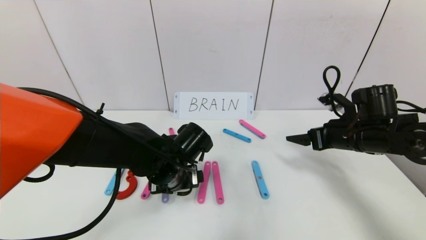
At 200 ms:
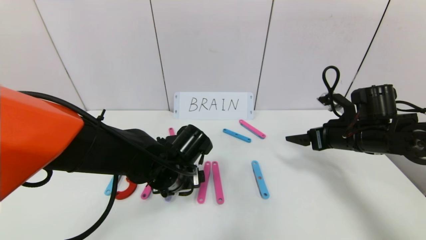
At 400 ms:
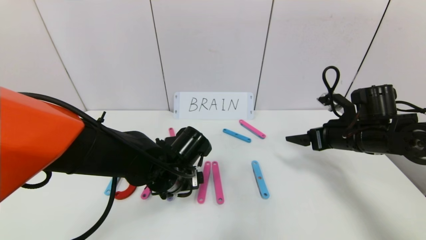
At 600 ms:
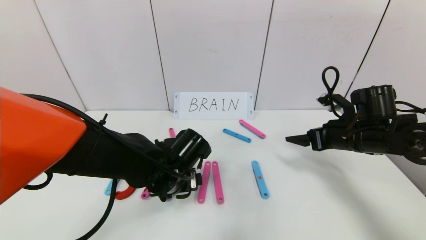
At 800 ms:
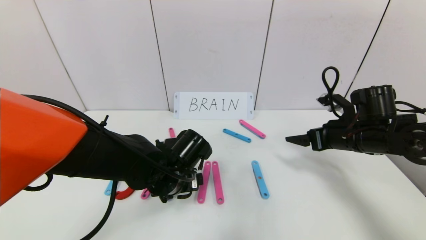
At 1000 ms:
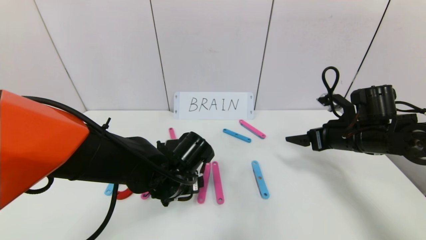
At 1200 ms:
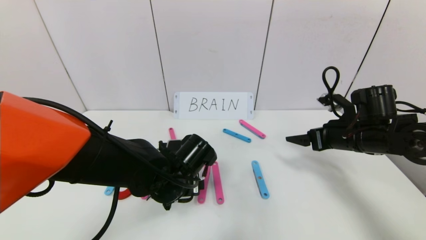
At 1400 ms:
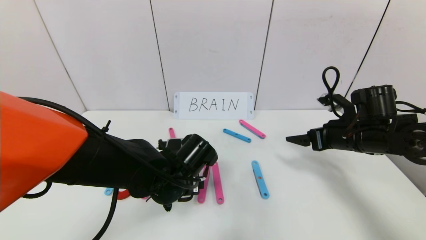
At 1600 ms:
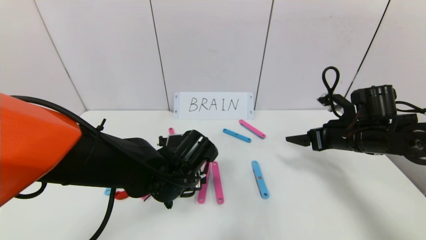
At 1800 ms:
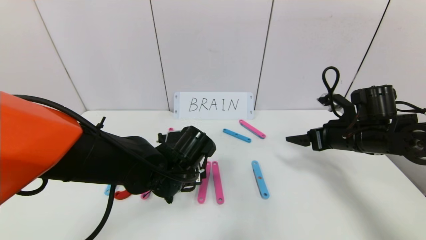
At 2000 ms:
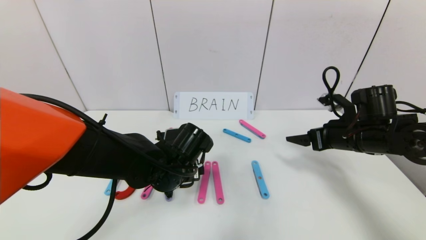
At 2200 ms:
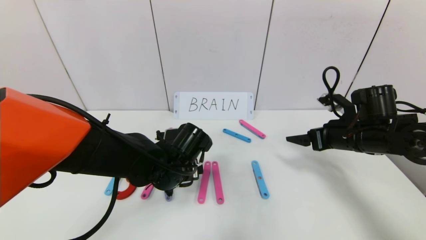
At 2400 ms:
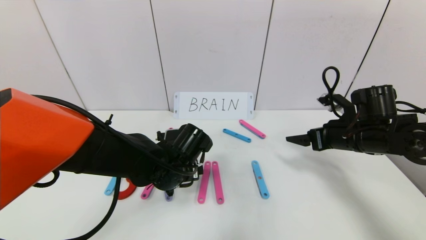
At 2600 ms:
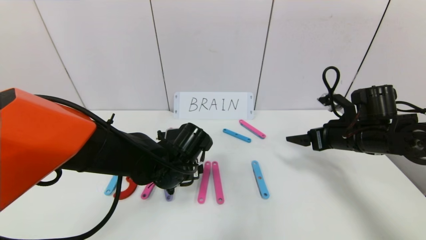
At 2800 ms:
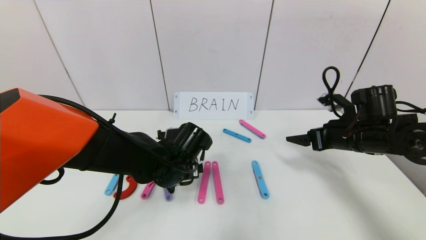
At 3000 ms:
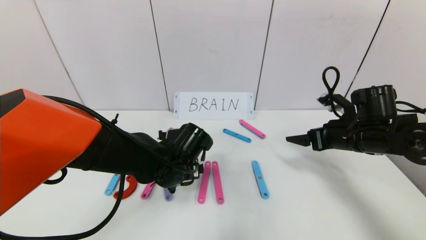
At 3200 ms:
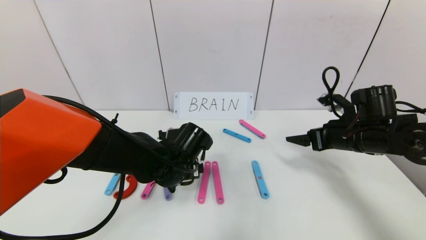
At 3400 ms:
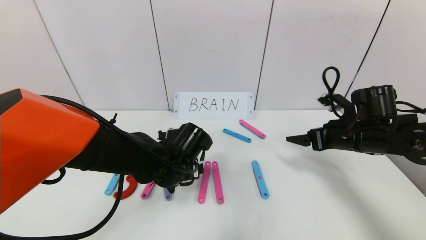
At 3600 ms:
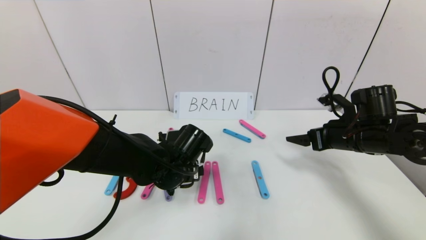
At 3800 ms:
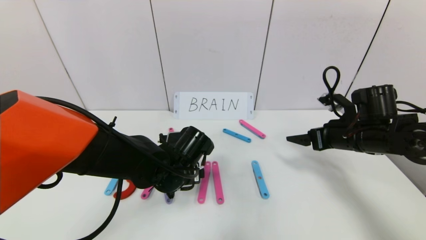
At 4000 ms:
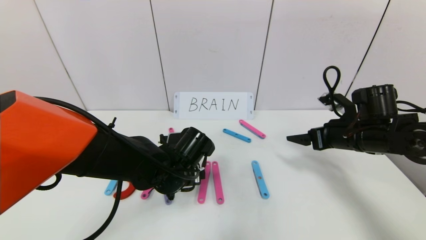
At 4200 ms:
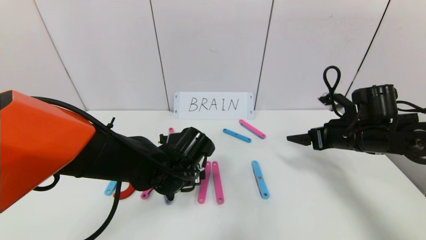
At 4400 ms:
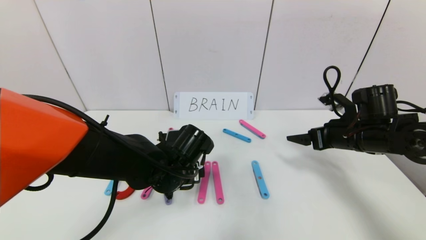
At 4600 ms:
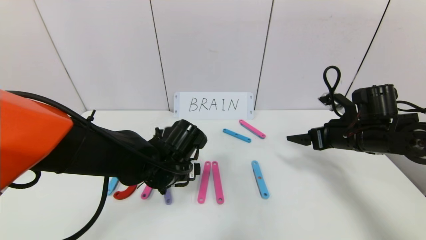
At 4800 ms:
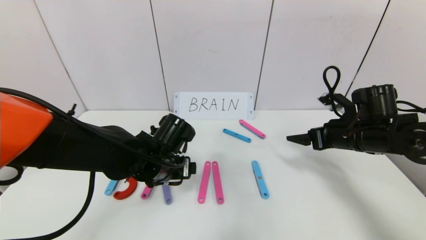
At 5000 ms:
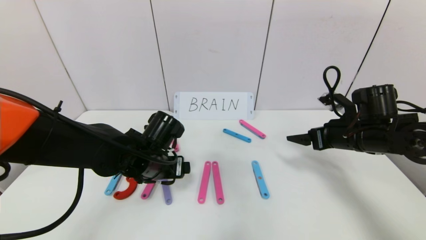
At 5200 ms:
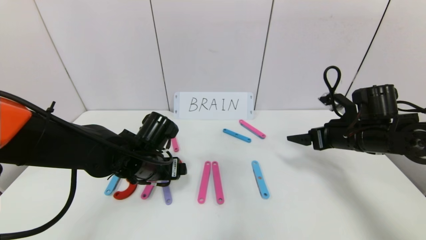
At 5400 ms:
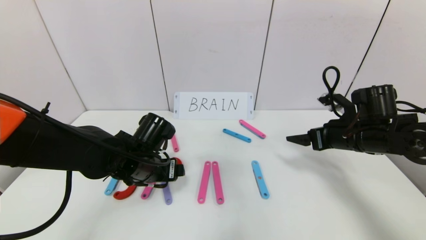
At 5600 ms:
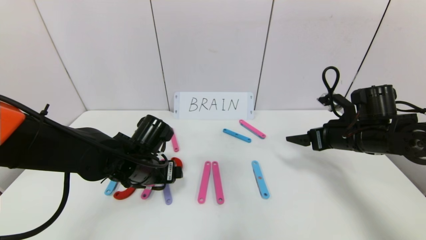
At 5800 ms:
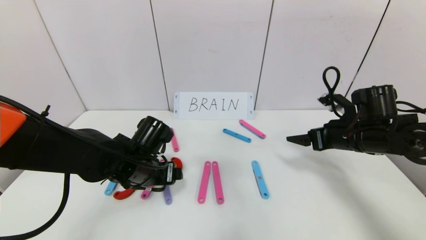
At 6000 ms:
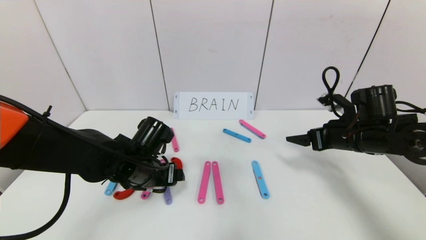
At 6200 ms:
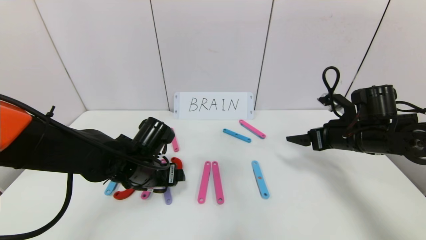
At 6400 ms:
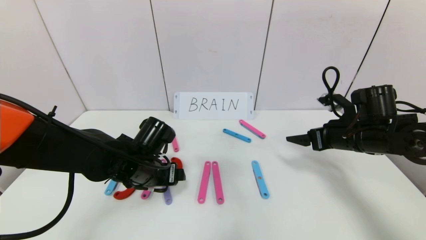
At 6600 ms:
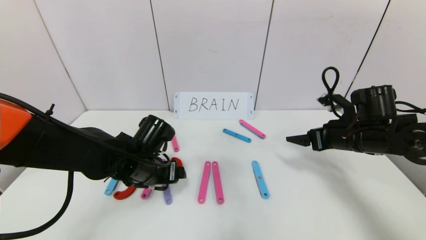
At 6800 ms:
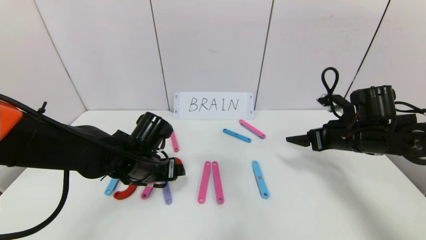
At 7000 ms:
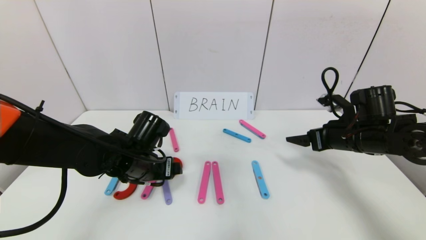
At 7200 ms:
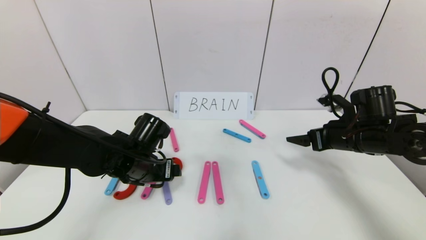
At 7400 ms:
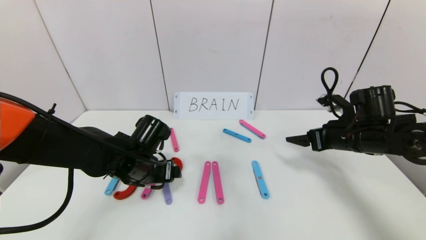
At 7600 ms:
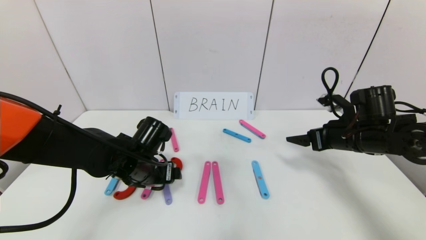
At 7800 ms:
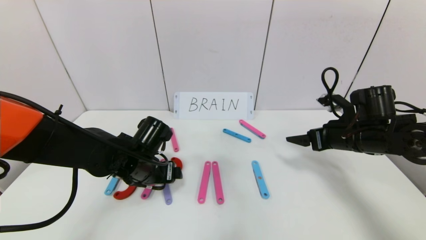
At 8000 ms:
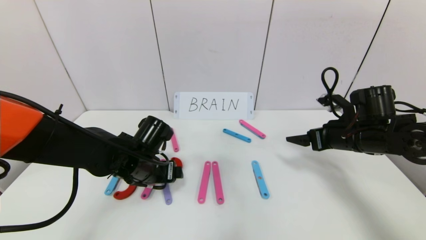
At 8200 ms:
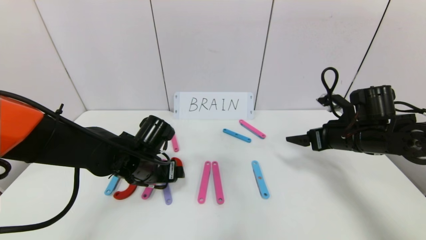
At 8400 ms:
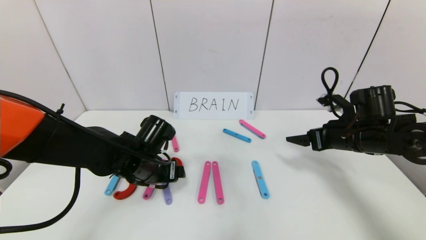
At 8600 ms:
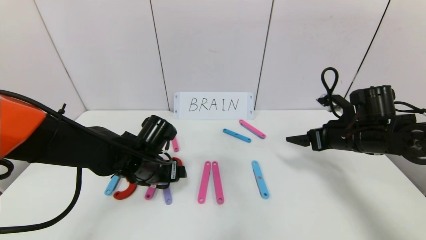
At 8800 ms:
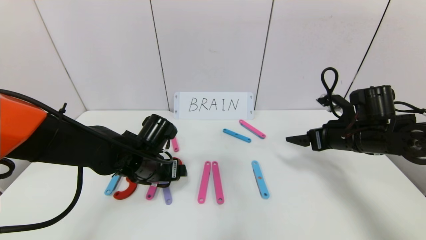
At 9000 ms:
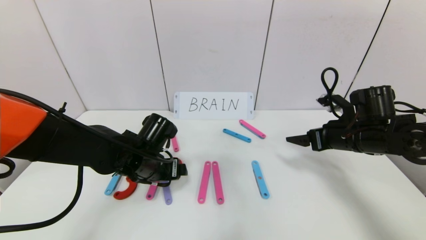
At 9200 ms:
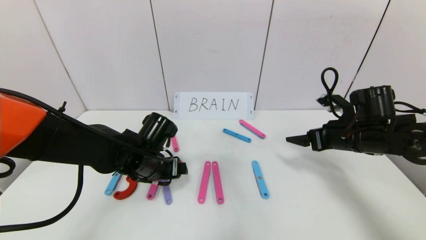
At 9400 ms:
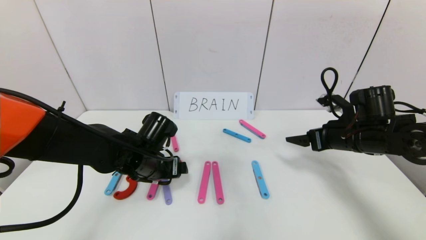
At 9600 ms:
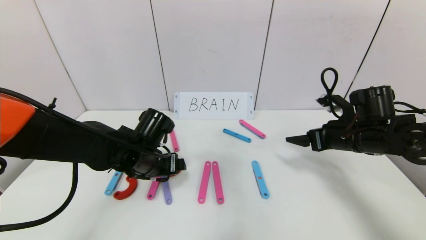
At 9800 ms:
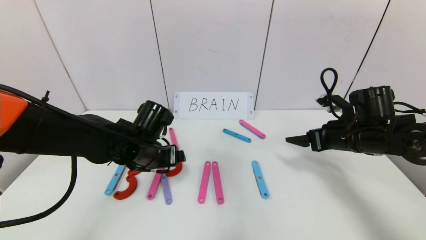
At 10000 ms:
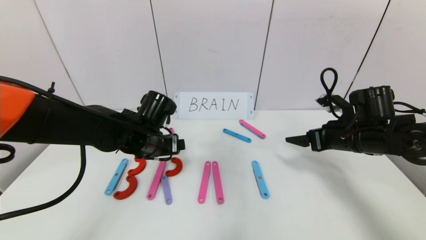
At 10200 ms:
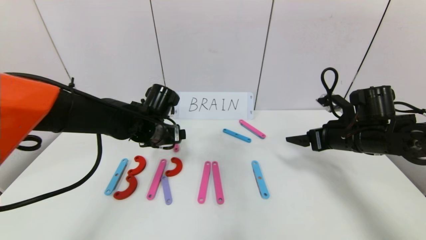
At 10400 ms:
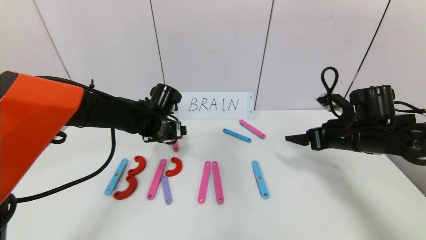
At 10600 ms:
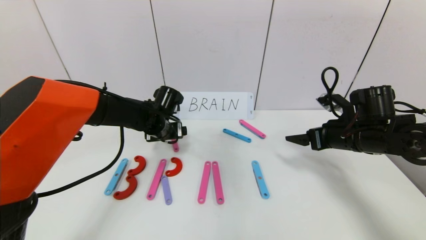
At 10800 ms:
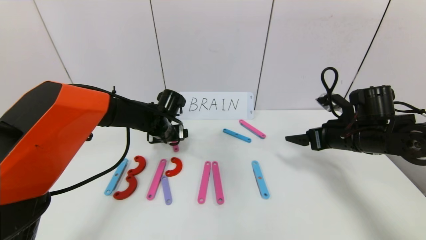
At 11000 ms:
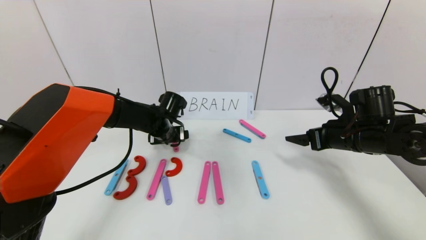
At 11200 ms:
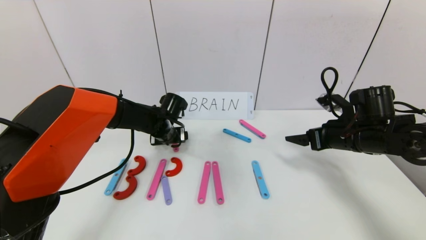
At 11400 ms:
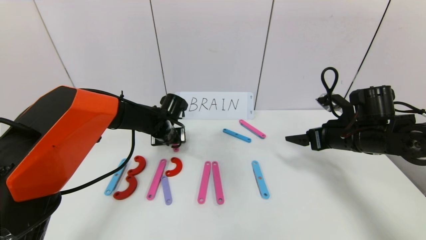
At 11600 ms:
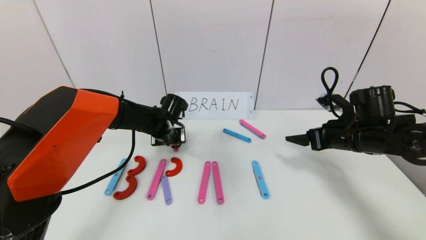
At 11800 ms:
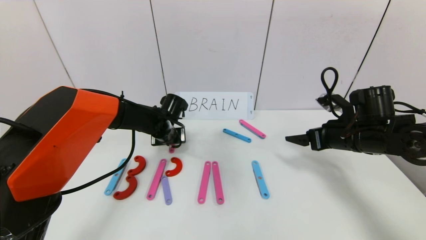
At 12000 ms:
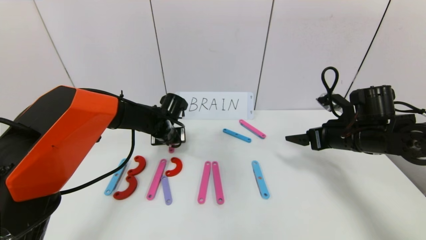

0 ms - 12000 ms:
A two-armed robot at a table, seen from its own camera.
Task of the whole recording: rearrange the word baai as brain.
Step, 0 ms - 4800 ms: Place the character R between first character B and third character A.
0 ms - 4400 ms: The grippers make only small movements.
4400 ms - 6000 ms: The left gripper travels to the left by about 5 cm.
6000 ms - 7600 ms: The grippers move only a little.
7600 ms - 9000 ms: Both grippers stay about where they are.
9000 ms - 10400 ms: The left gripper is displaced forward by approximately 10 cm.
10400 ms - 12000 ms: The left gripper changes place by roughly 5 cm, and closes.

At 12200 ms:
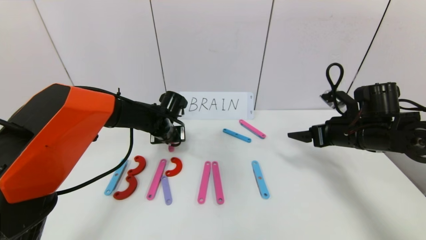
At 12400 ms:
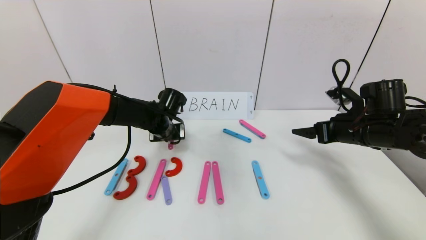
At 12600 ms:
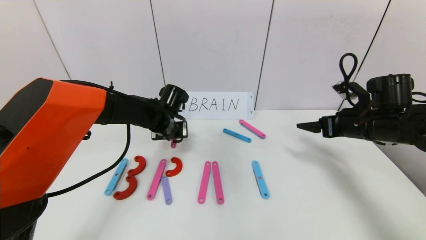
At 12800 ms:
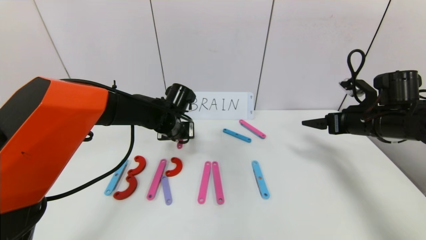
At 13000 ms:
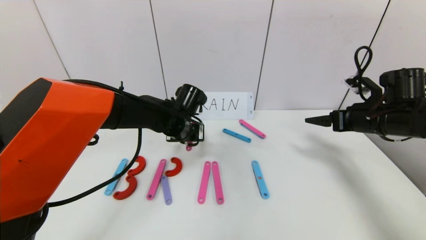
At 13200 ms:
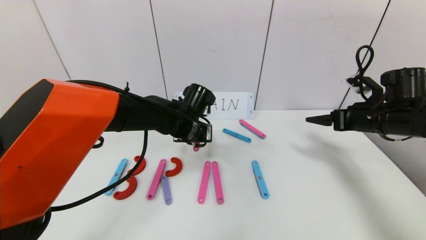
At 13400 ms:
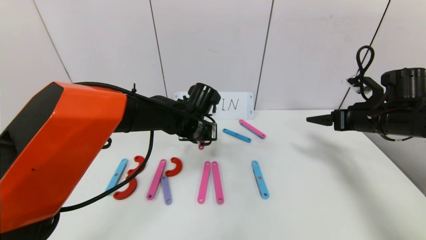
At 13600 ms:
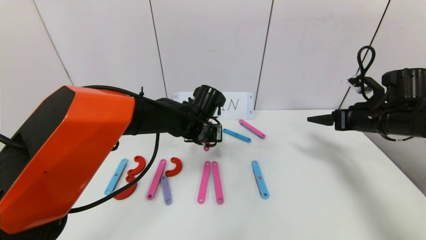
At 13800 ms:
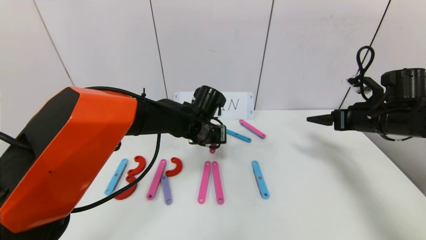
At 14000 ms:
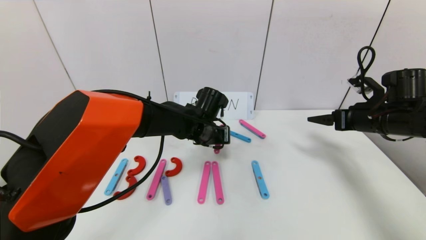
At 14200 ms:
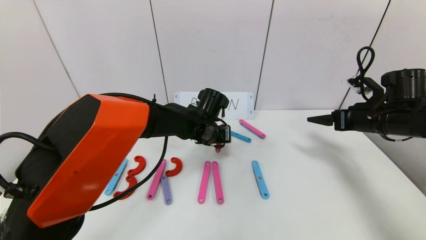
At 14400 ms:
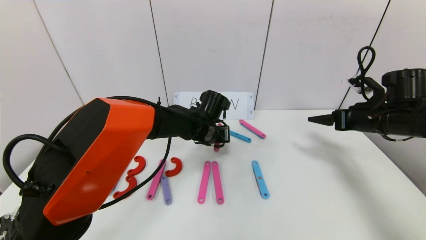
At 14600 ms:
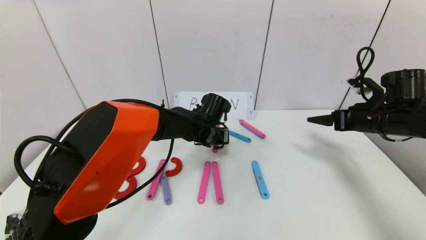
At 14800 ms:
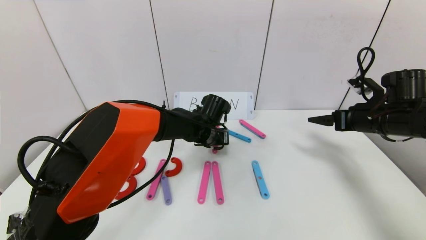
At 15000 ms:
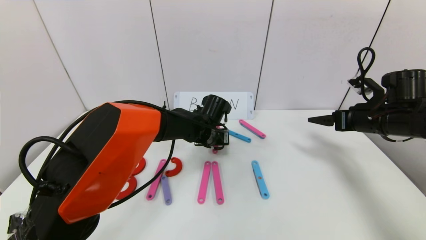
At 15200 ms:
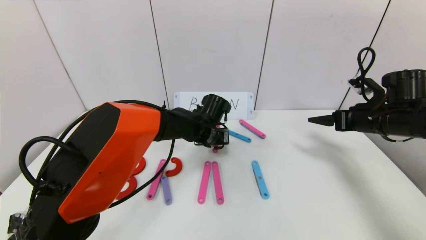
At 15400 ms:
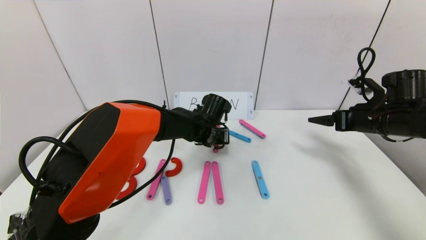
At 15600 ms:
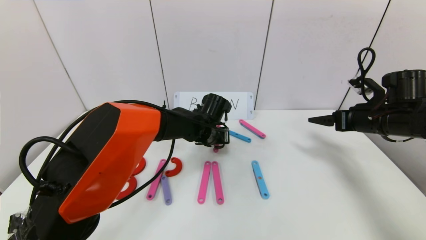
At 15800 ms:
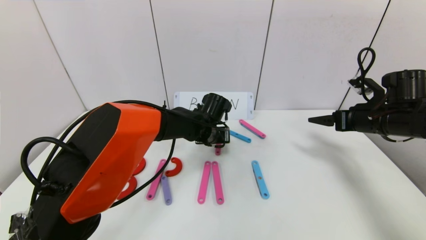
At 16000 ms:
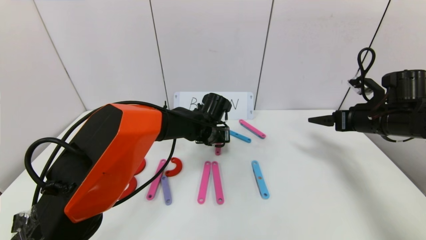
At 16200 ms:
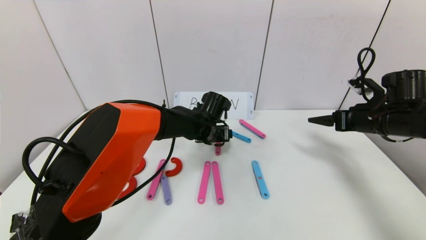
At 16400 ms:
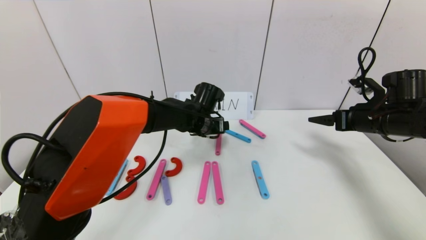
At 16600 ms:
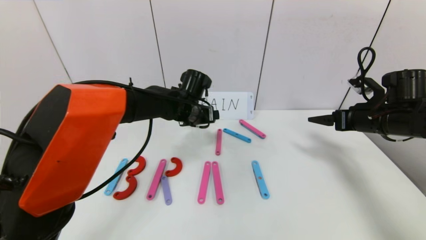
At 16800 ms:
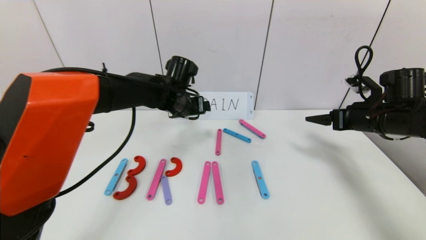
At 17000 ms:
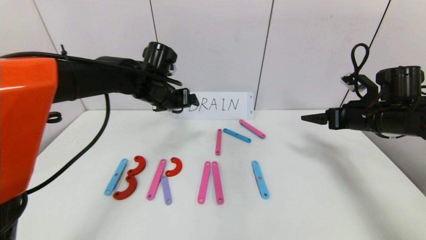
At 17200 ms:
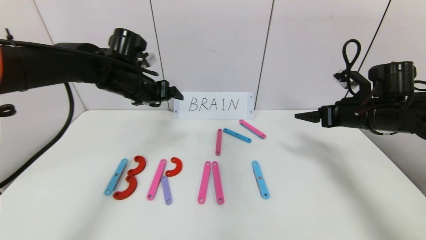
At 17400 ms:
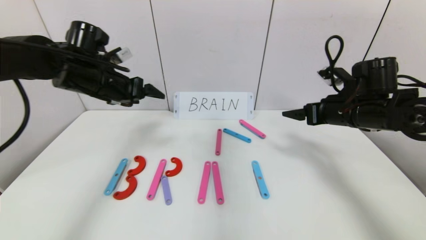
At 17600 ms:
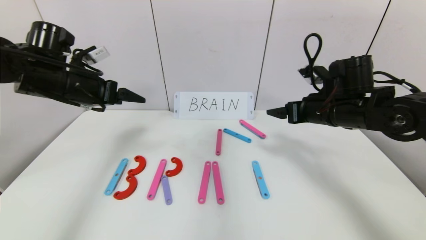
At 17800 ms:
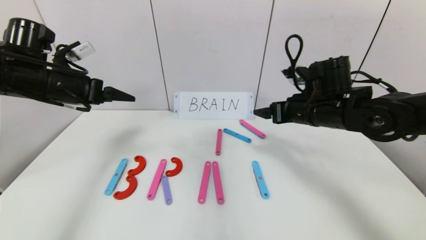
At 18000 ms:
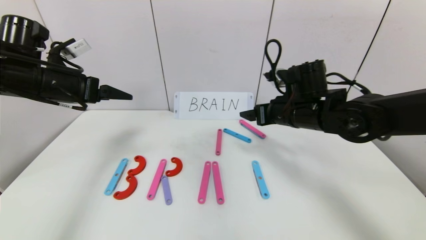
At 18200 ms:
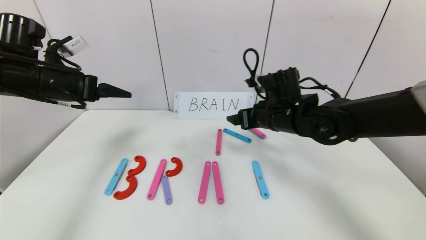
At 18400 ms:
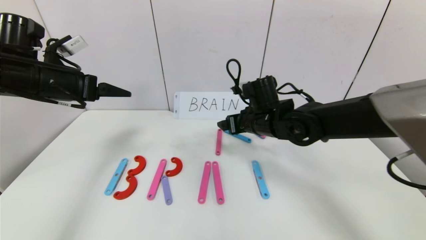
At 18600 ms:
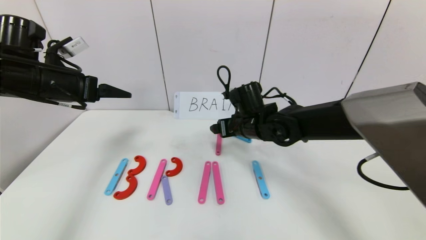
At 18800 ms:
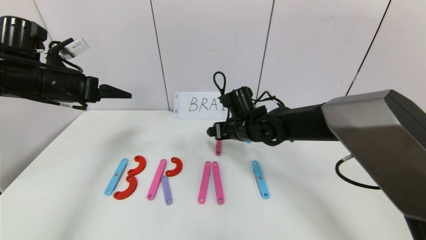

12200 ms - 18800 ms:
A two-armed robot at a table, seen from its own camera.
Task of the whole recording: rearrange the word baai as brain.
12200 ms - 13800 ms: The right gripper shifts about 5 cm to the right. The left gripper moves to the right, about 10 cm.
13800 ms - 15400 ms: The grippers make only small movements.
15400 ms - 17200 ms: The left gripper is displaced to the left and upward by about 25 cm, and opens its fingers.
17200 ms - 18800 ms: The left gripper travels to the left and backward by approximately 15 cm, while the right gripper moves to the left, roughly 25 cm.
